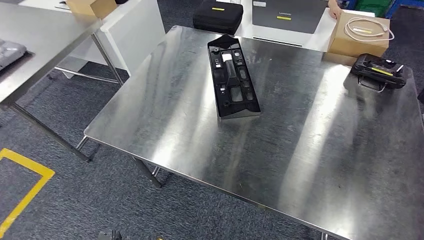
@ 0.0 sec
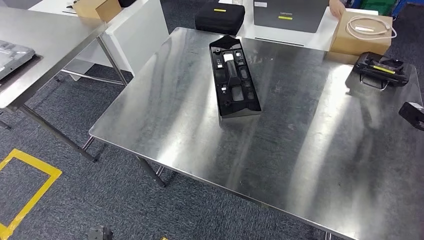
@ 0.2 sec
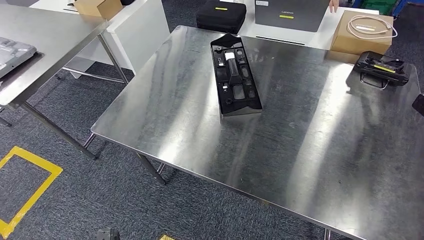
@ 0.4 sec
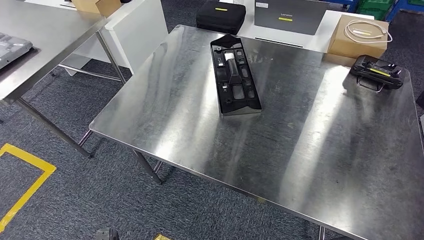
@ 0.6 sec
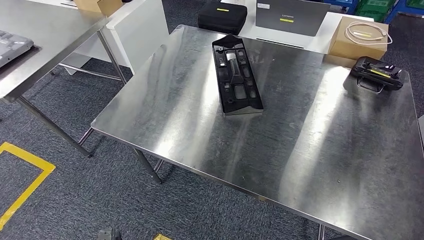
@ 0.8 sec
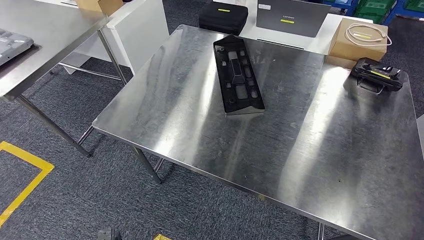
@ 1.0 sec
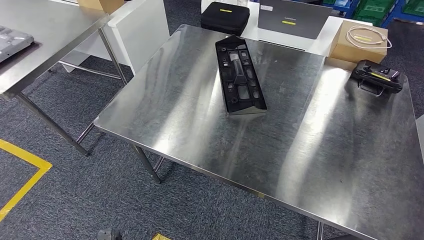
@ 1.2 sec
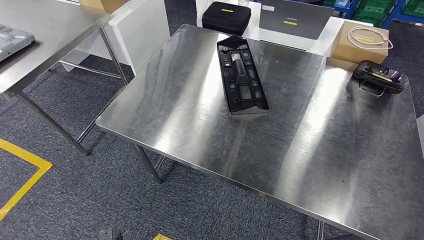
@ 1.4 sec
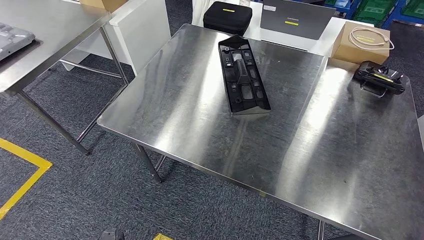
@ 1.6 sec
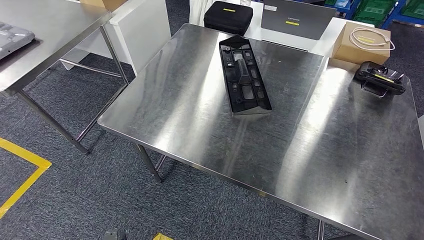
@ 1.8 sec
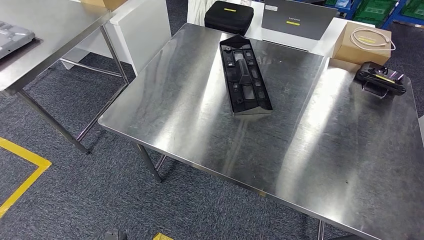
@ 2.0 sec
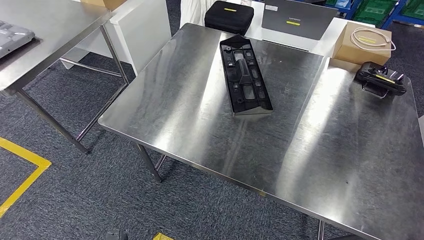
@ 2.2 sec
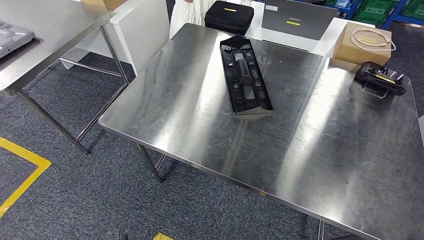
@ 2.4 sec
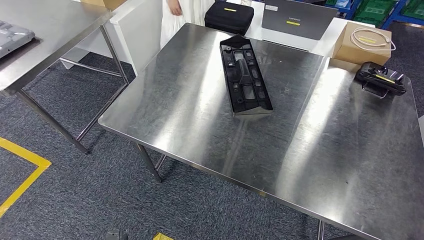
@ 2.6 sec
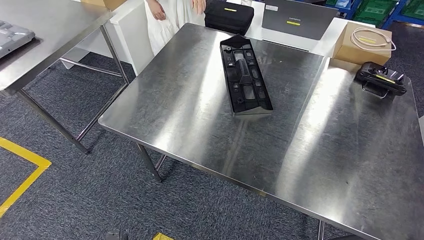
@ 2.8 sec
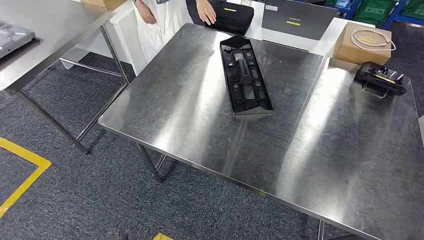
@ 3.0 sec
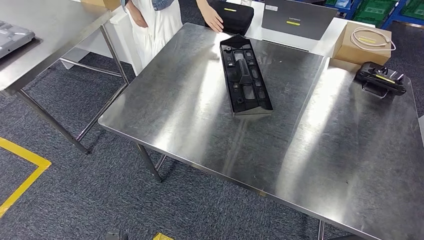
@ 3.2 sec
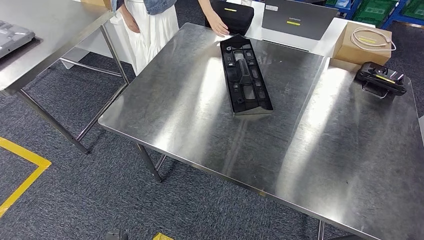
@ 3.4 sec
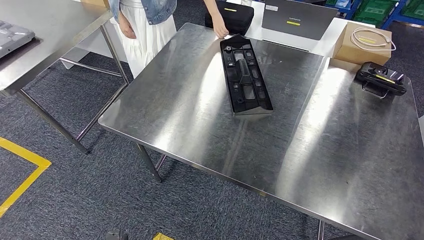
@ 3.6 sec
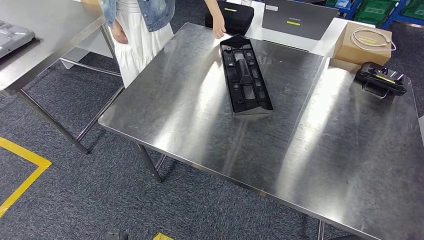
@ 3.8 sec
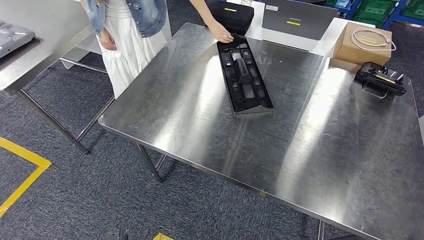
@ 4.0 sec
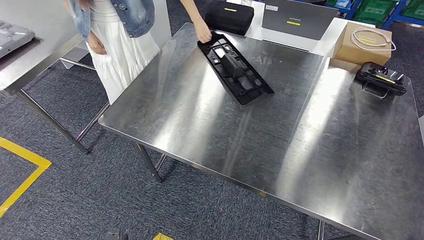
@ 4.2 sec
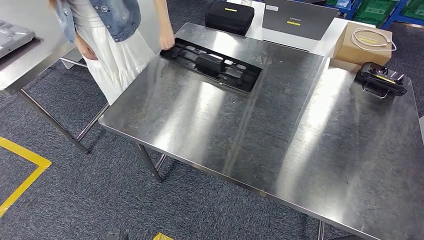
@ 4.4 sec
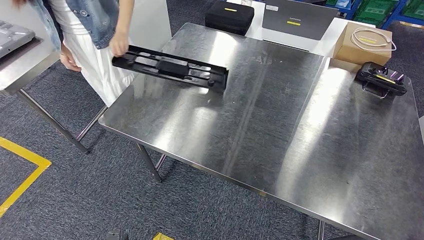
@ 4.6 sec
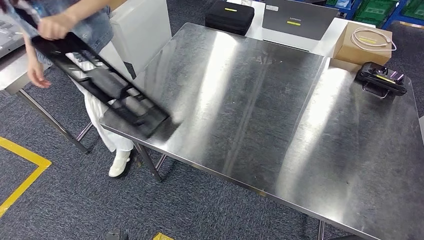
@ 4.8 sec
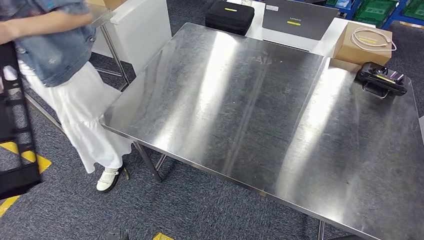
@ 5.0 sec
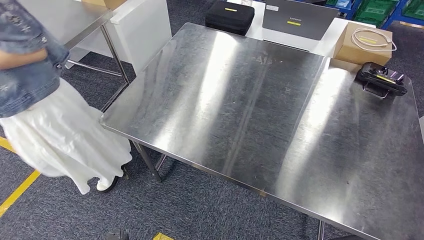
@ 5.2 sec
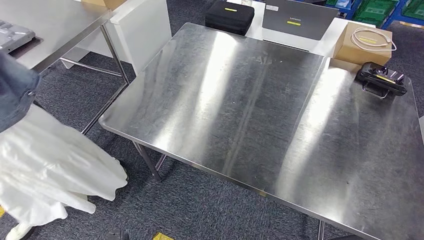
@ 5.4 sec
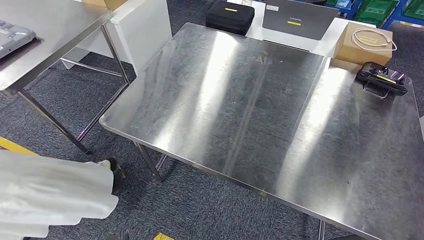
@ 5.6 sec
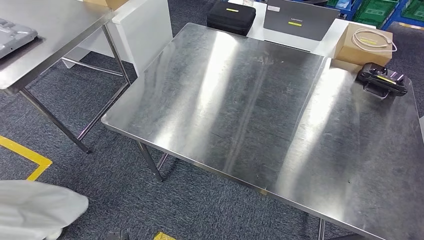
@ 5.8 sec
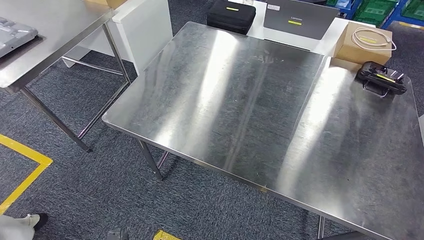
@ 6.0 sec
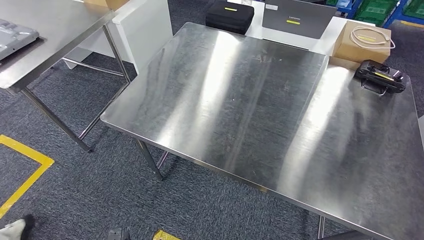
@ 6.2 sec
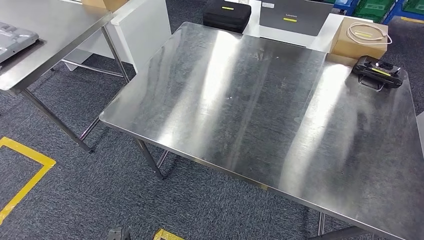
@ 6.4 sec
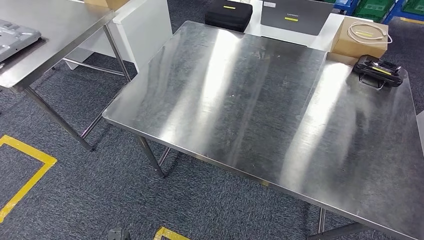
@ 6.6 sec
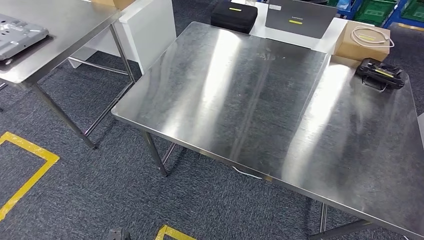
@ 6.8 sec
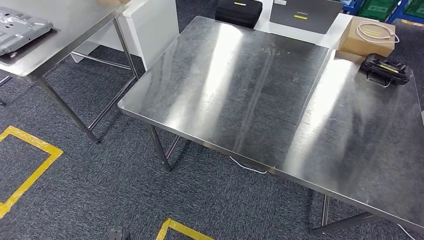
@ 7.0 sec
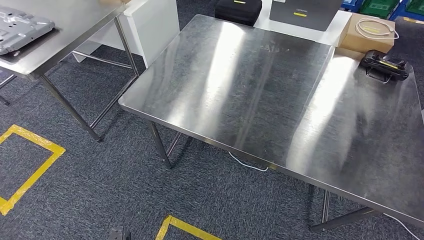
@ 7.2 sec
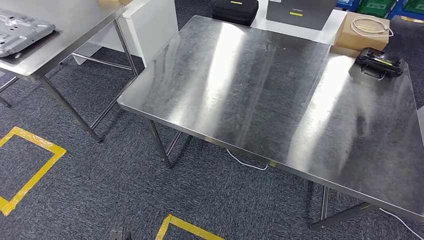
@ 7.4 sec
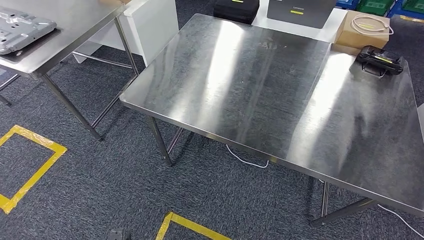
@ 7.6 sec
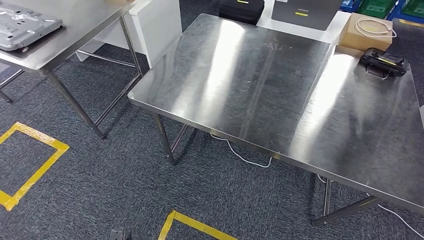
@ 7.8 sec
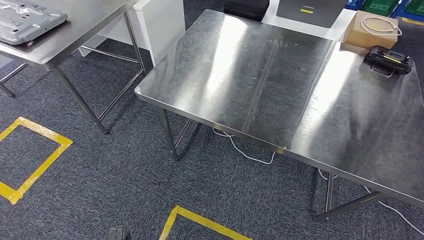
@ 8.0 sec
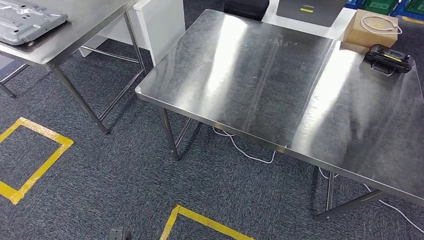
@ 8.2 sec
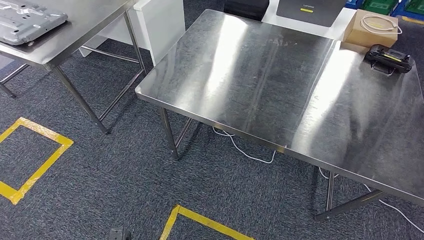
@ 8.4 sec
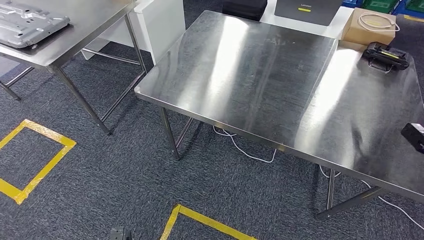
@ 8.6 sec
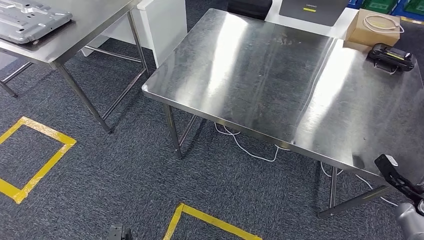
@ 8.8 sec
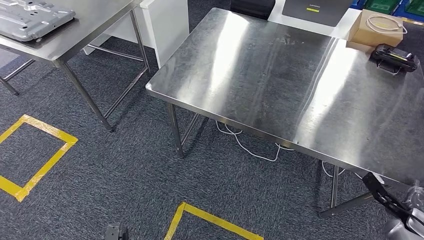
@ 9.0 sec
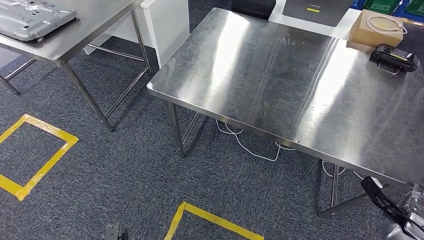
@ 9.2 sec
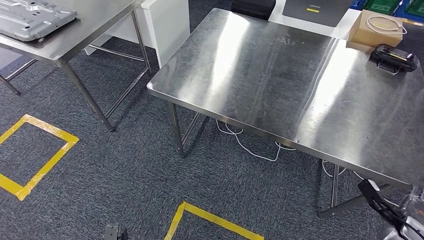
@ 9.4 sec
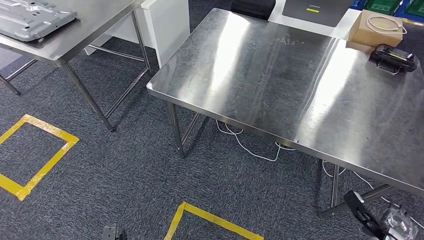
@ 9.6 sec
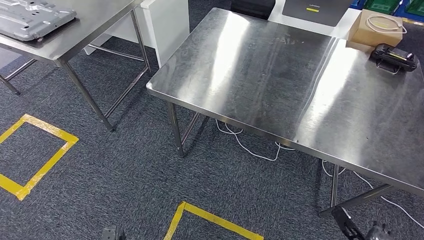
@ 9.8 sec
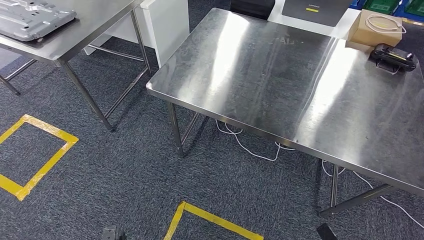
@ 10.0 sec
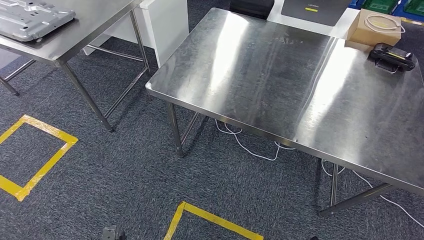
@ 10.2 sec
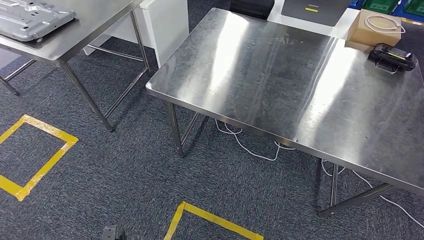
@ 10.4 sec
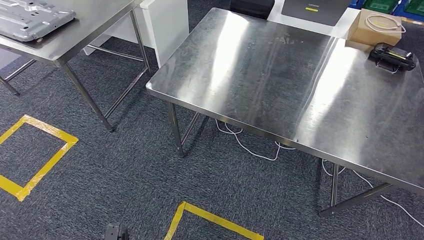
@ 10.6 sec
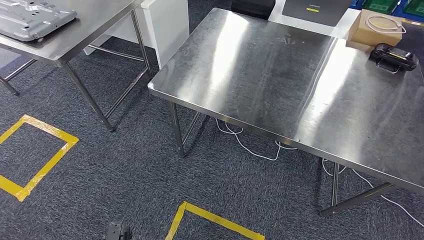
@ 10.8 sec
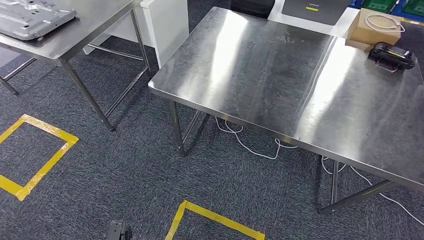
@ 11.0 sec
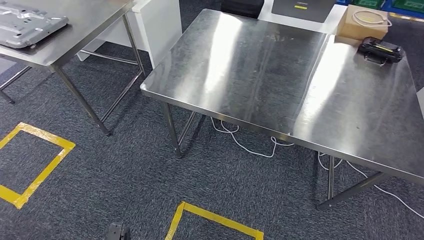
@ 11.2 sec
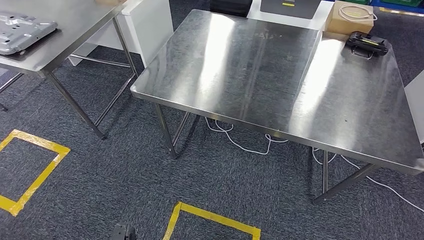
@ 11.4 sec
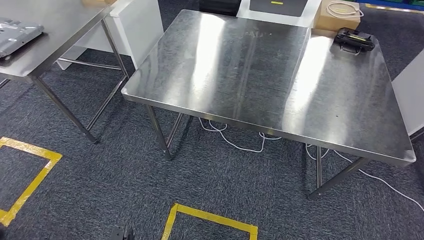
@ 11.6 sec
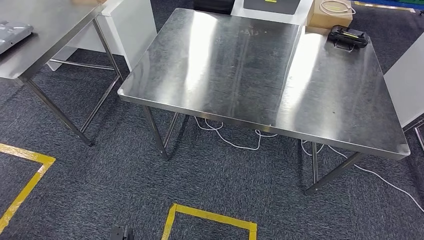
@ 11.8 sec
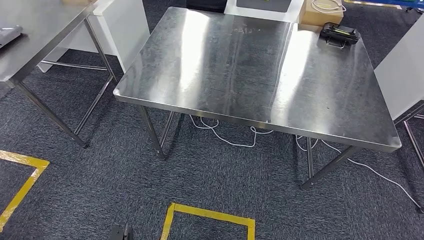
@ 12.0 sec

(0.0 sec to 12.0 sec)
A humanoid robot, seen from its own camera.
1.6 sec - 4.4 sec: Both hands stay put.
4.4 sec - 6.0 sec: Both hands stay about where they are.
9.0 sec - 10.4 sec: The right hand is displaced to the left, backward and downward by approximately 30 cm.

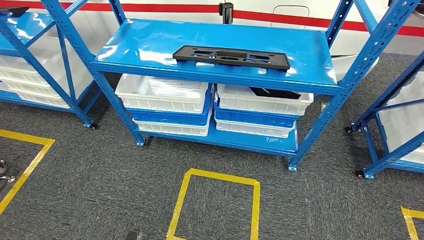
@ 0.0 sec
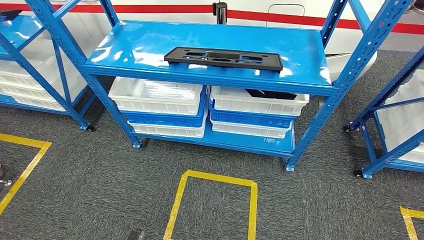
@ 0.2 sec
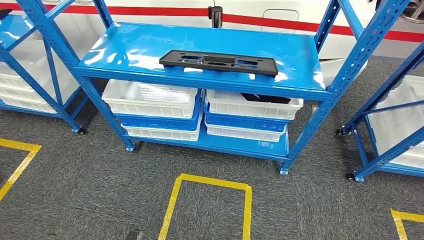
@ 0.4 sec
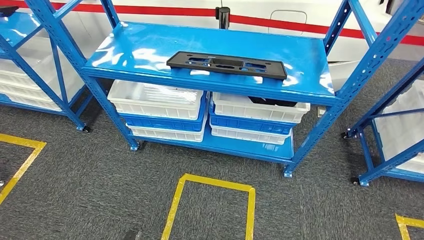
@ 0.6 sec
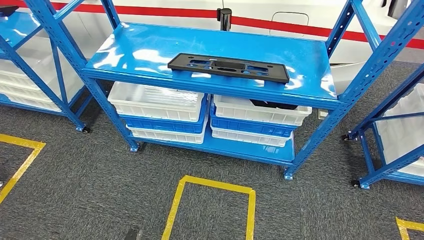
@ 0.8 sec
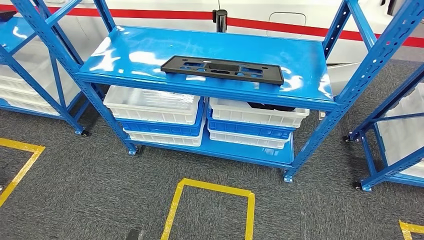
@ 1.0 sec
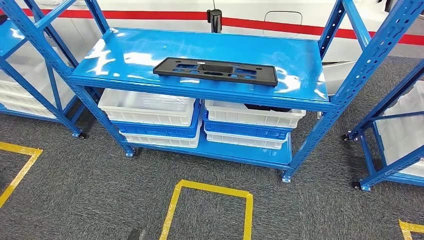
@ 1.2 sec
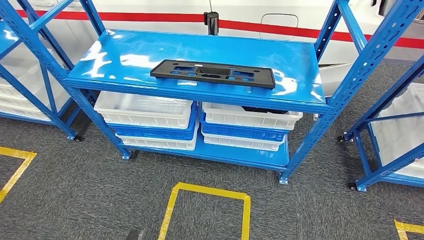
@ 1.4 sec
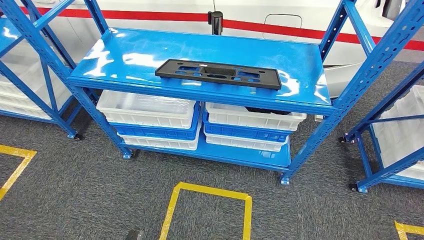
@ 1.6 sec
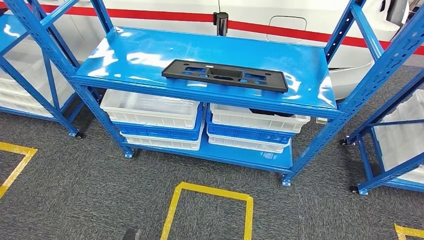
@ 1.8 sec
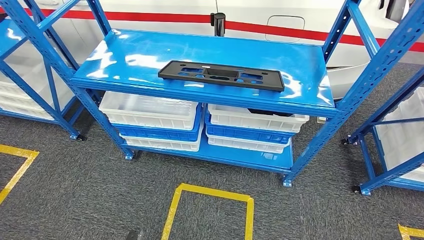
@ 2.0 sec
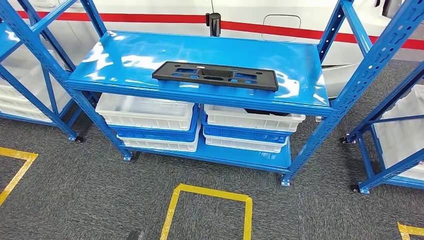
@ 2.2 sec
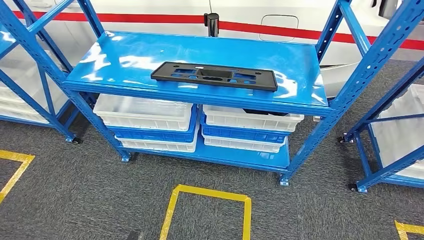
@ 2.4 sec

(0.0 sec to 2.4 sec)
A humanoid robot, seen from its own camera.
Step, 0.0 sec - 2.2 sec: Move to the initial position of the shelf.
